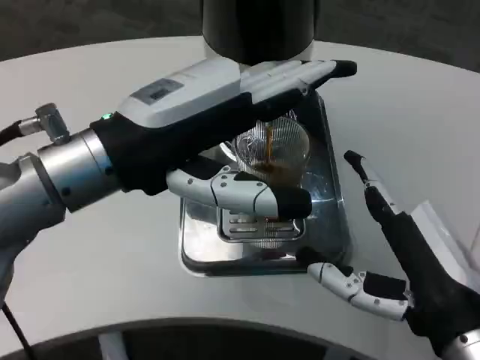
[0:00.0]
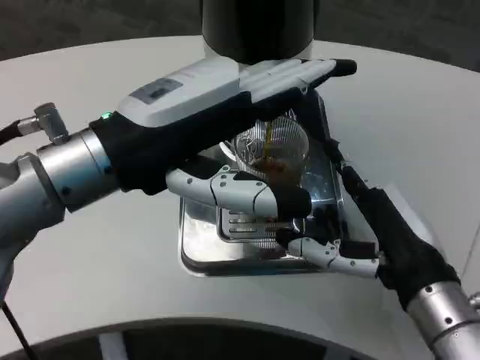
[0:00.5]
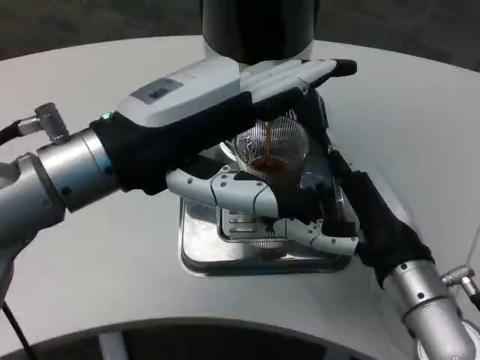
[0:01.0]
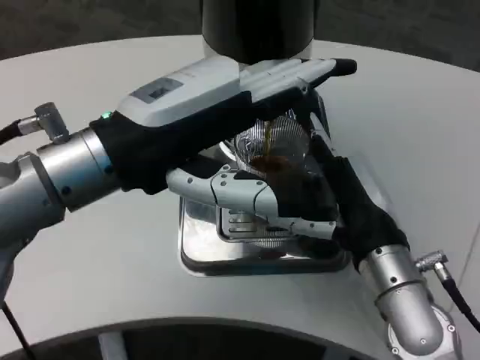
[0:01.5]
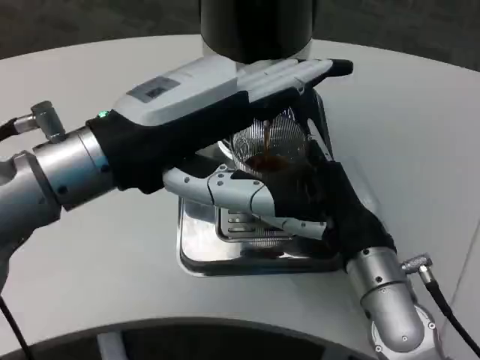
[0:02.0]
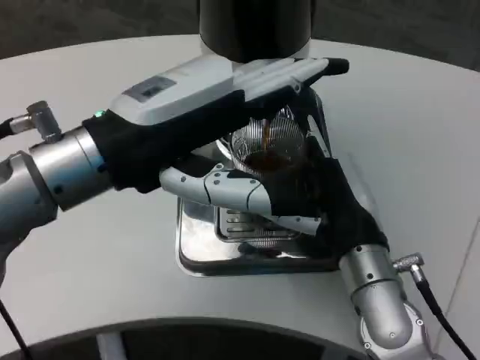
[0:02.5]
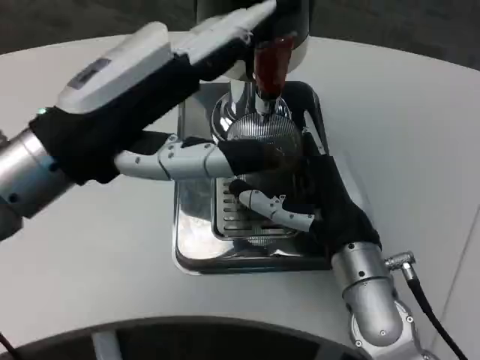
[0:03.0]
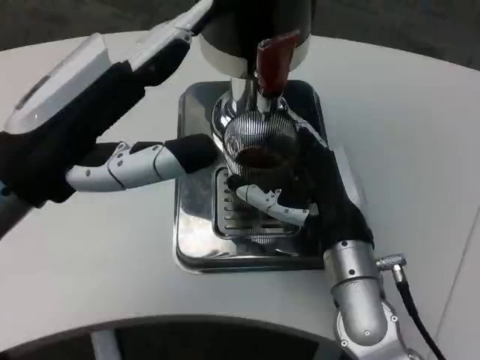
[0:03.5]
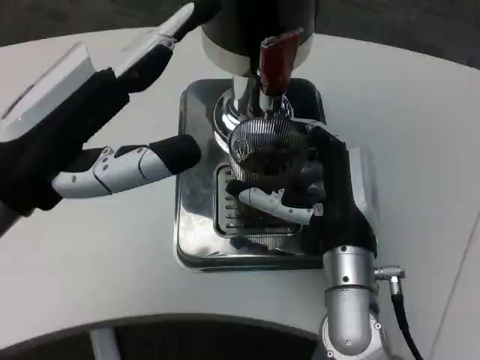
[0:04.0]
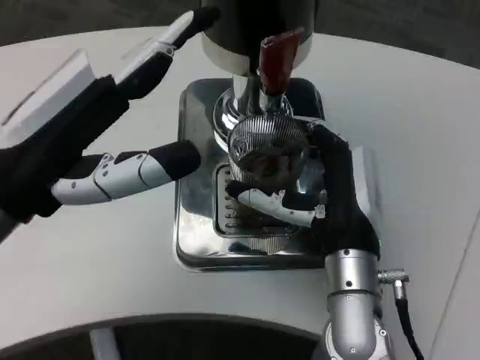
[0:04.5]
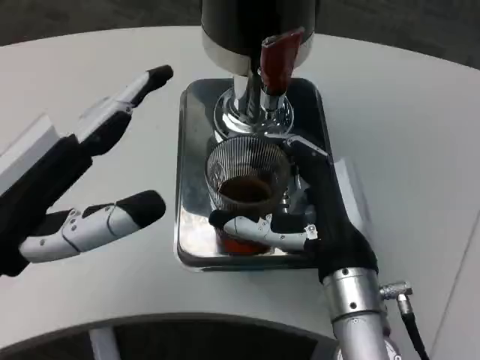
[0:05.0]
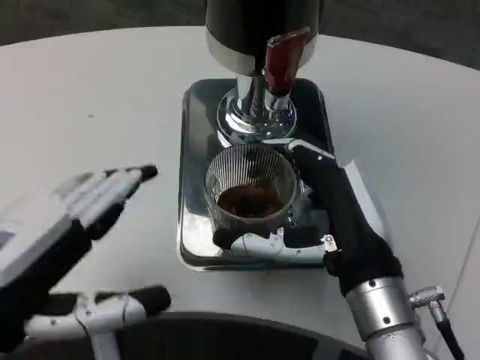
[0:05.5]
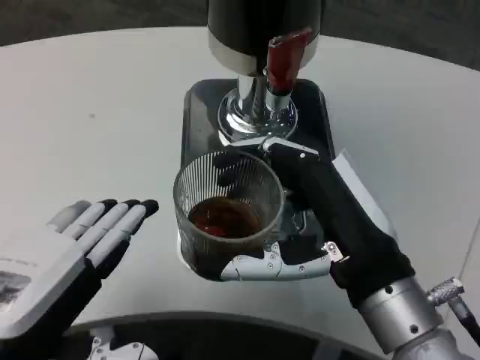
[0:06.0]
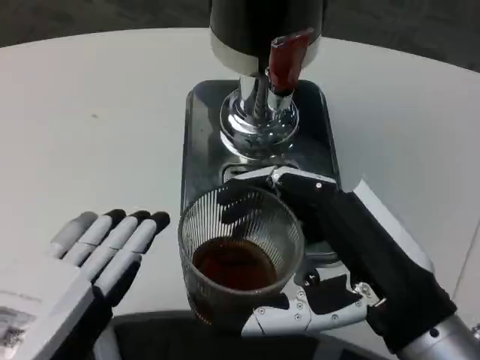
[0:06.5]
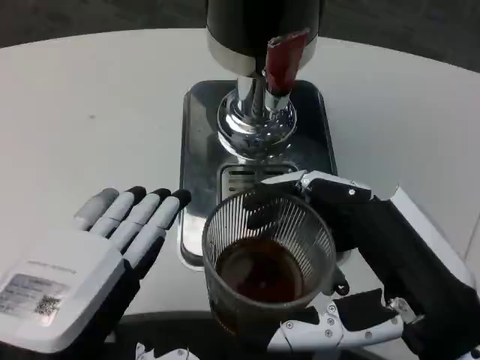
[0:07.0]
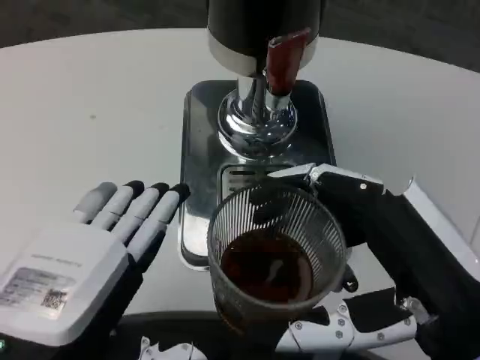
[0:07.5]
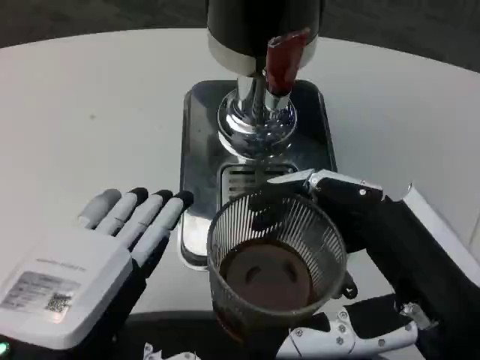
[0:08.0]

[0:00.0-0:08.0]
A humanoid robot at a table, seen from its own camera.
Task of the whole recording: Grasp the cup under the faucet to collect the drink, then remove the cup.
0.0 to 2.0 s: The right hand goes about 10 cm forward and to the left.
2.0 to 4.0 s: The left hand moves to the left, about 5 cm.
4.0 to 6.0 s: The left hand moves backward and downward, about 10 cm; the right hand shifts some 10 cm backward.
6.0 to 8.0 s: The right hand shifts approximately 5 cm backward.

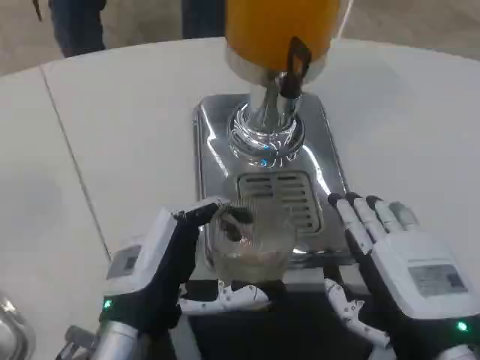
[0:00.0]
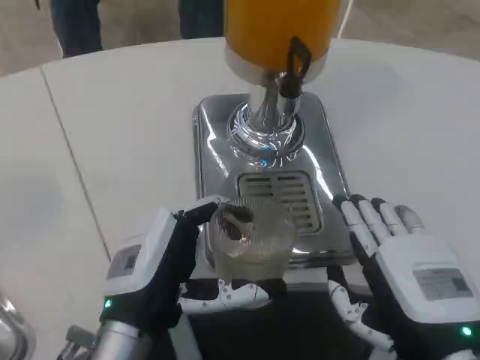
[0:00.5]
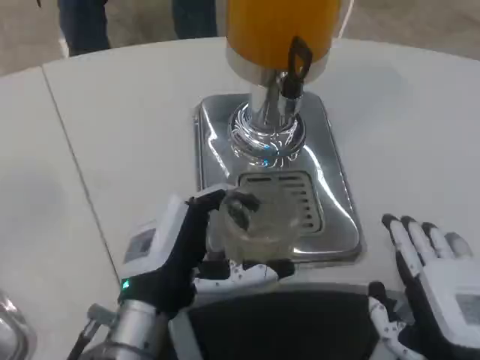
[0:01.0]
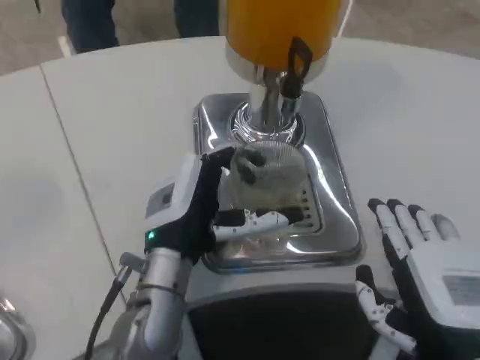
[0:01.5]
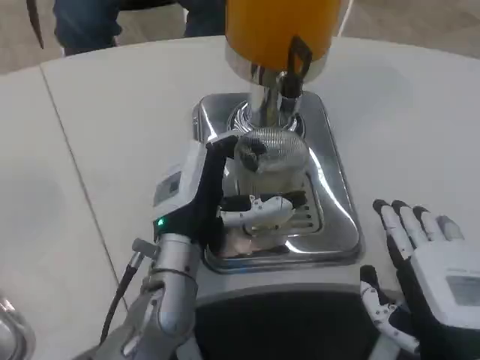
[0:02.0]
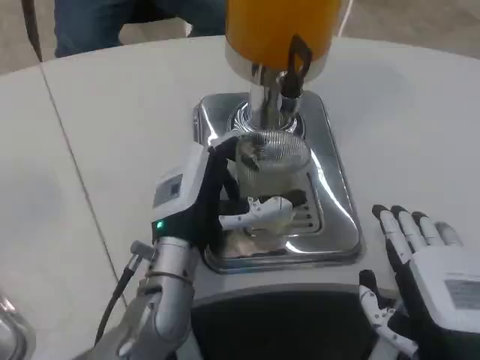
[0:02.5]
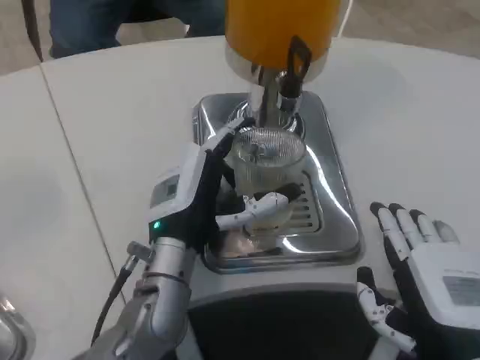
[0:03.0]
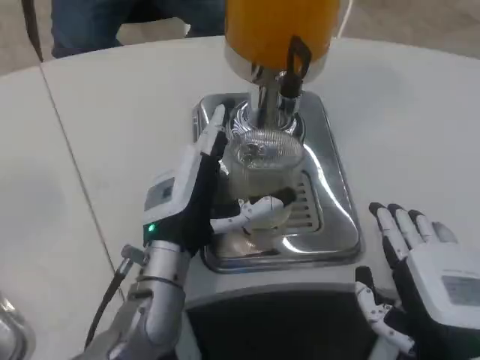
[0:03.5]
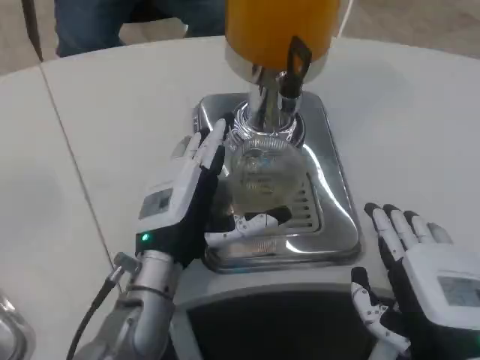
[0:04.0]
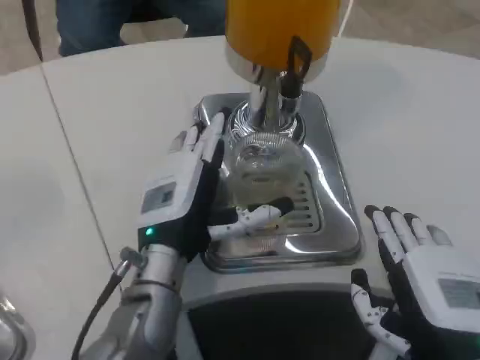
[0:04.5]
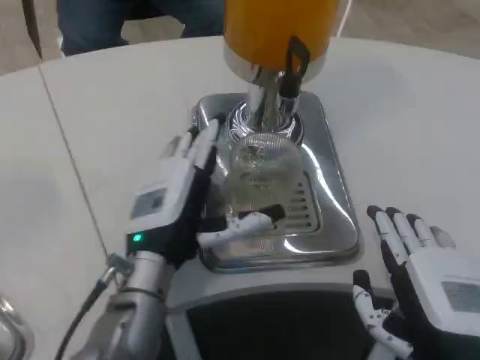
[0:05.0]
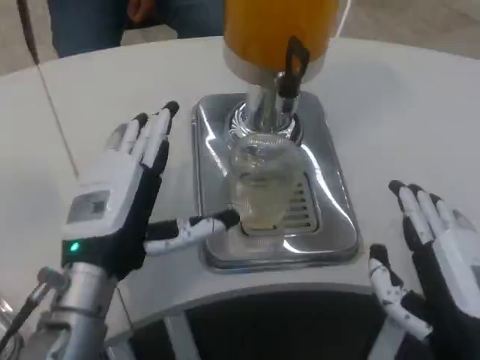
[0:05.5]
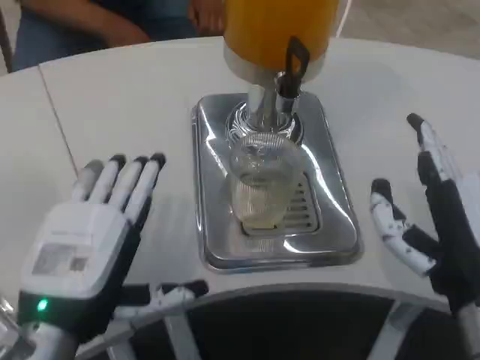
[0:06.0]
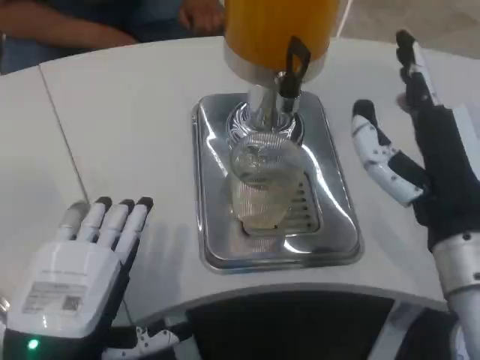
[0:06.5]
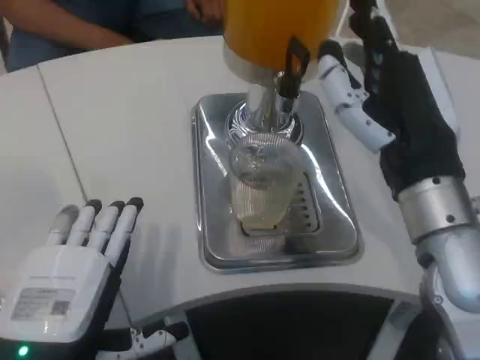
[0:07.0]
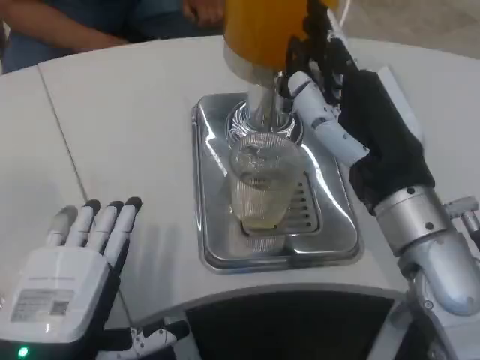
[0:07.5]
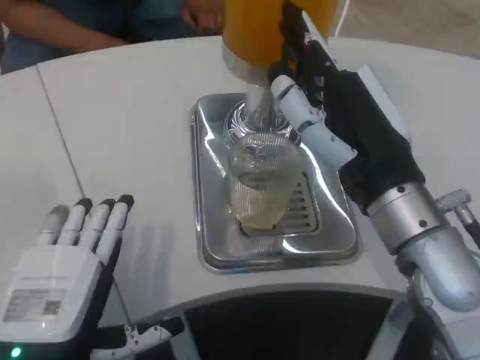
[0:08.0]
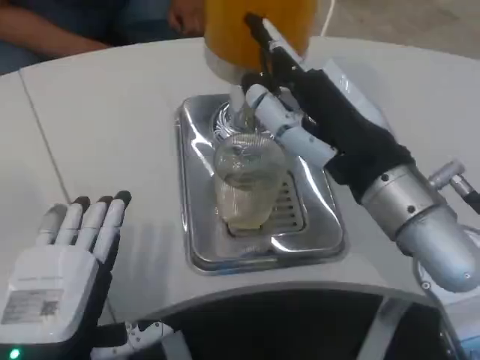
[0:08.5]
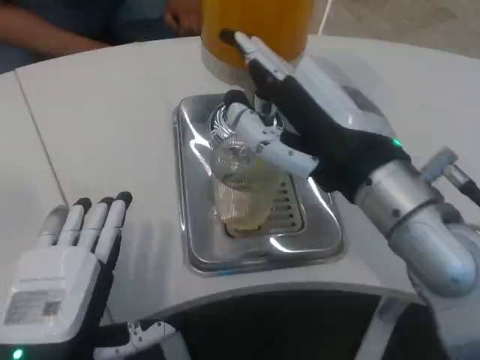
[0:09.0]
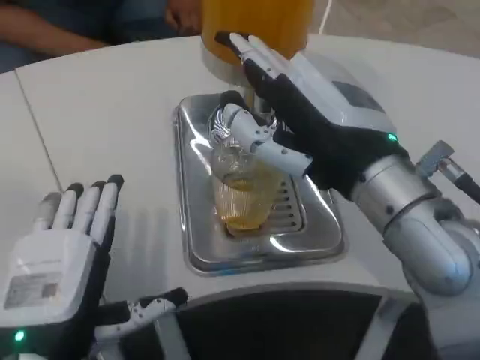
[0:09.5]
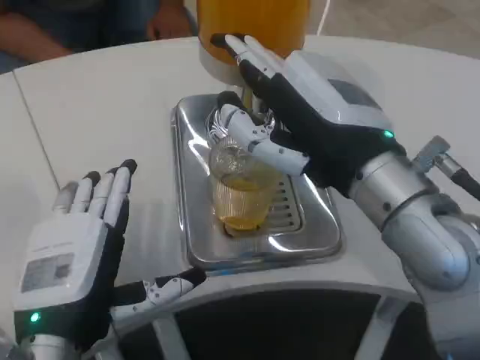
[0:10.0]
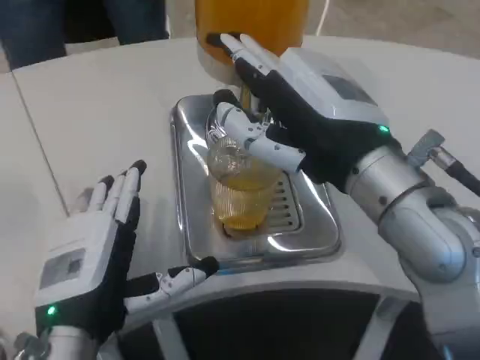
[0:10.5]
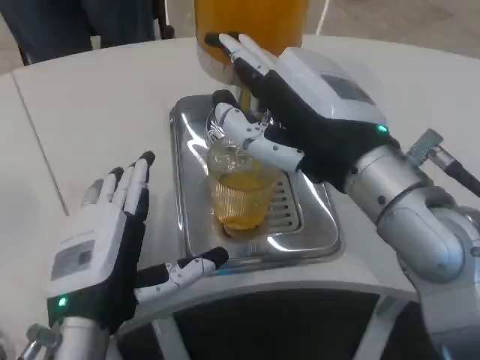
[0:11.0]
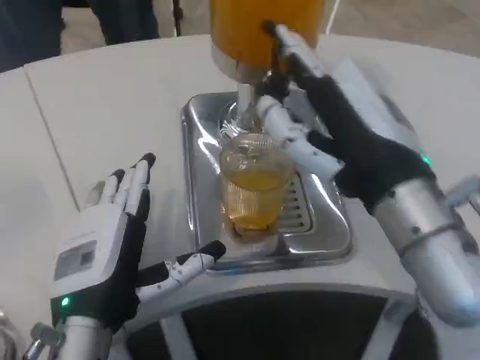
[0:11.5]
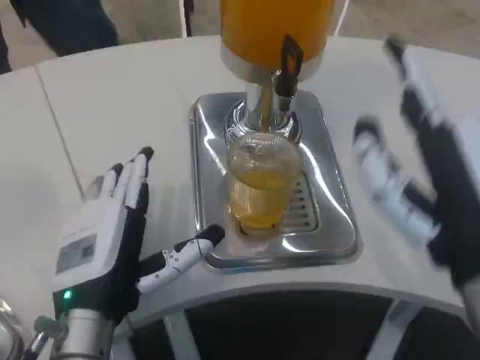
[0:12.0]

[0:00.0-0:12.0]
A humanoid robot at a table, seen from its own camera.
Task of the whole recording: Grasp the cup under the faucet to collect the drink, then remove the cup.
0.0 to 2.0 s: The left hand travels forward by about 10 cm.
2.0 to 4.0 s: The hands make only small movements.
4.0 to 6.0 s: The right hand moves approximately 5 cm. The left hand shifts roughly 15 cm backward and to the left.
6.0 to 8.0 s: The right hand moves upward and forward, roughly 10 cm.
10.0 to 12.0 s: The right hand heads backward and downward, covering roughly 10 cm.

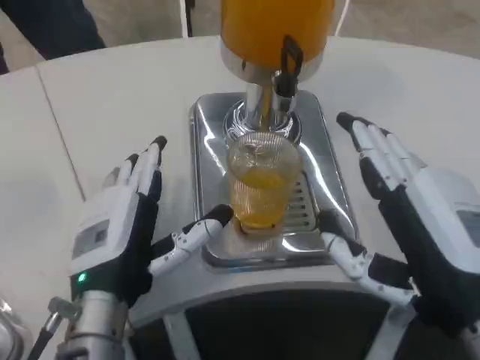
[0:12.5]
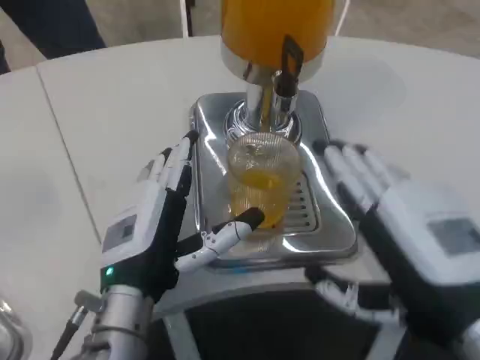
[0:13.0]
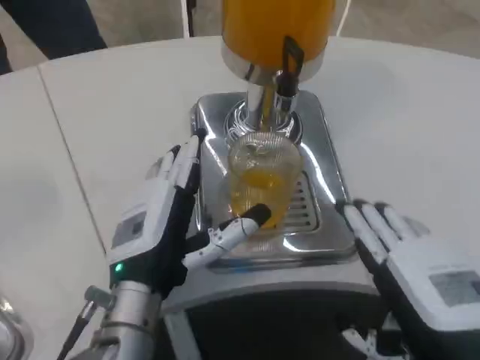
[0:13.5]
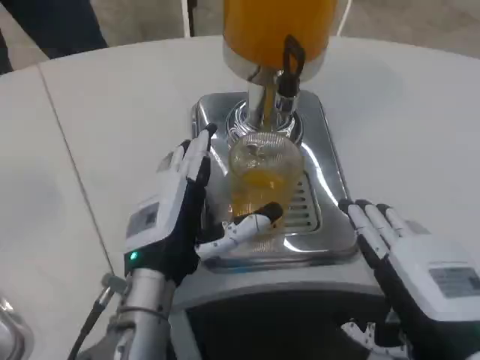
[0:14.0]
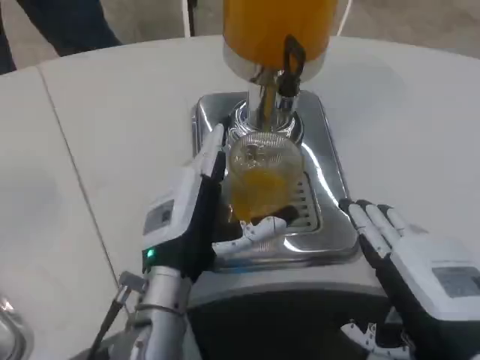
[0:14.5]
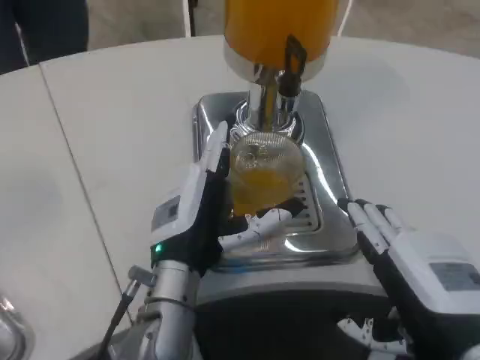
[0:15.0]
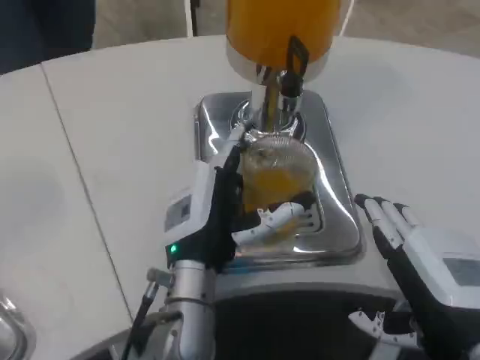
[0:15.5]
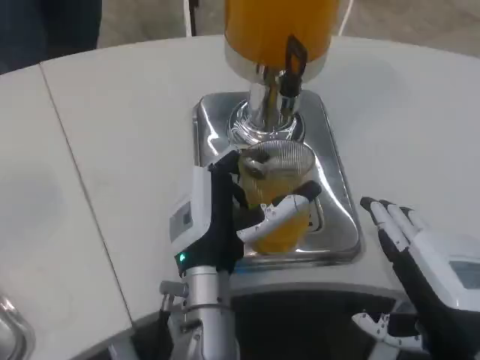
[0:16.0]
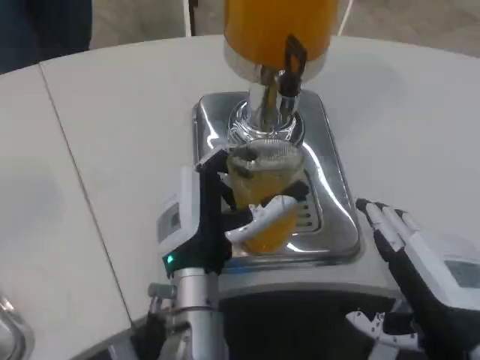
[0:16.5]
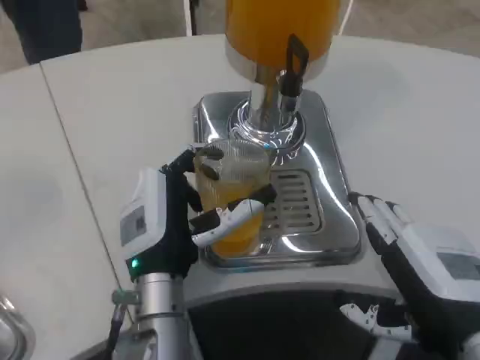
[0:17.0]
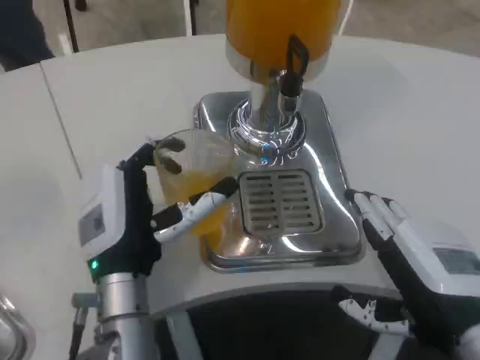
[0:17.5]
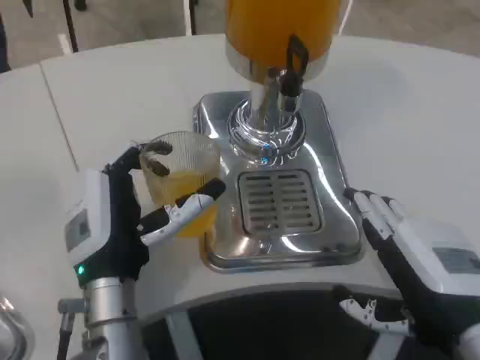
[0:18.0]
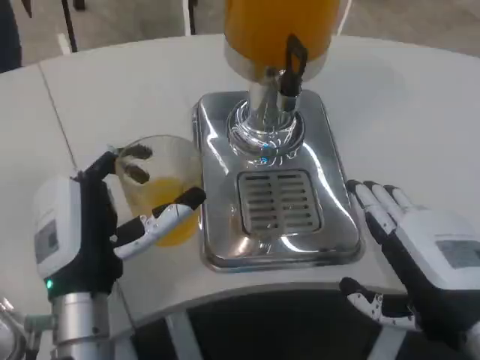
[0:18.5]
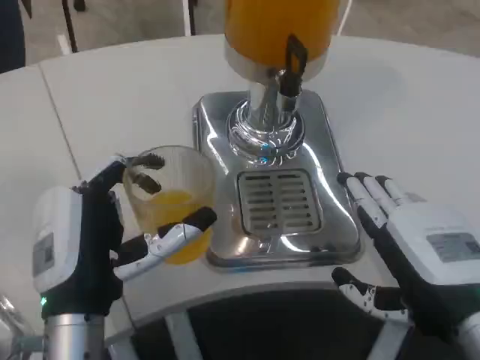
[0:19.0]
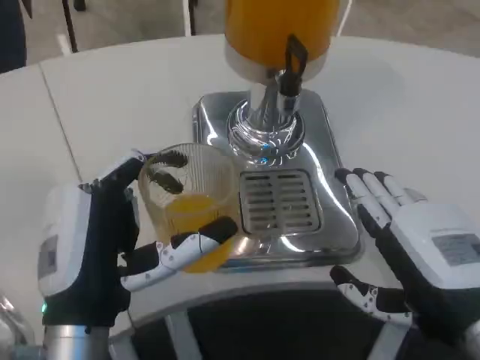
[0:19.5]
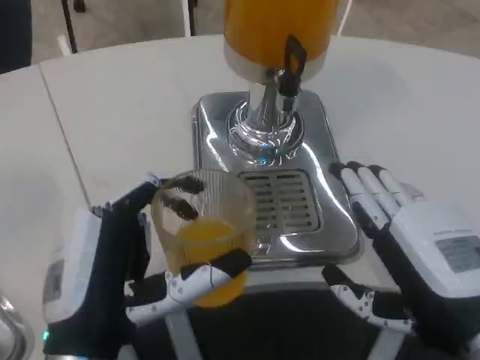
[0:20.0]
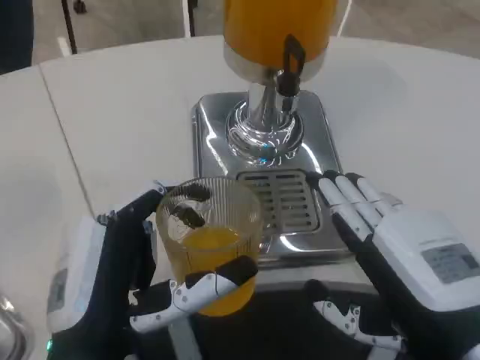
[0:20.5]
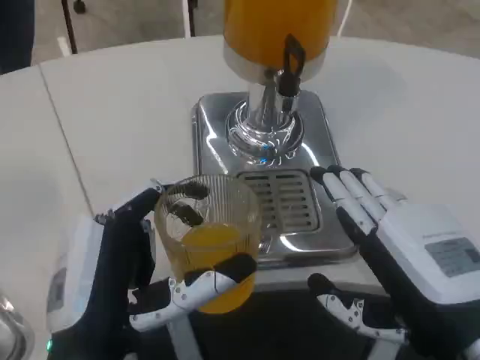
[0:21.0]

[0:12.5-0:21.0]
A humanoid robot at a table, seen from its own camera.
Task of the whole recording: Grasp the cup under the faucet to collect the drink, then remove the cup.
12.5 to 14.5 s: The left hand moves roughly 5 cm.
14.5 to 16.5 s: The hands make only small movements.
16.5 to 19.0 s: The left hand moves to the left and backward, some 10 cm.
19.0 to 21.0 s: The left hand shifts about 5 cm backward.
